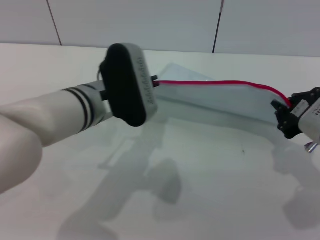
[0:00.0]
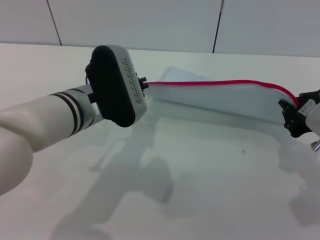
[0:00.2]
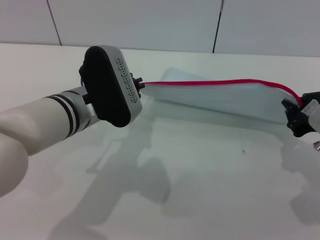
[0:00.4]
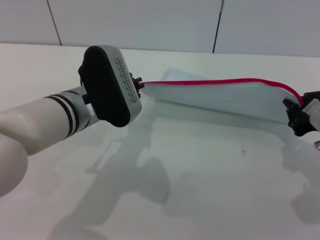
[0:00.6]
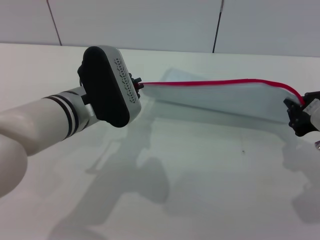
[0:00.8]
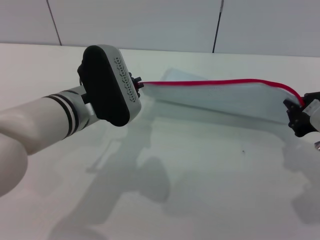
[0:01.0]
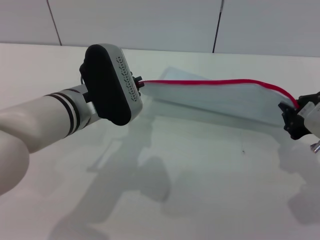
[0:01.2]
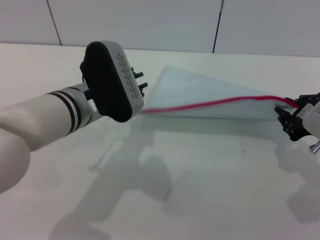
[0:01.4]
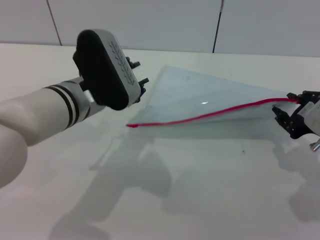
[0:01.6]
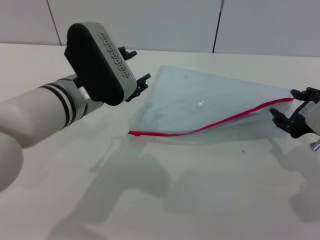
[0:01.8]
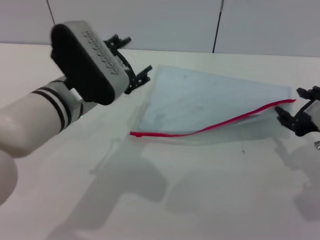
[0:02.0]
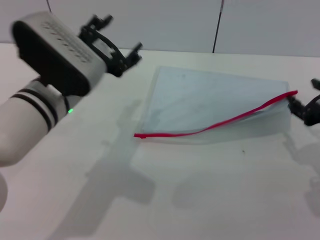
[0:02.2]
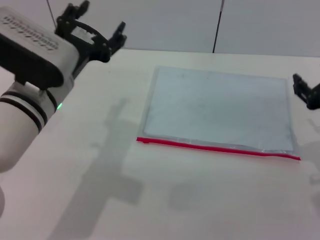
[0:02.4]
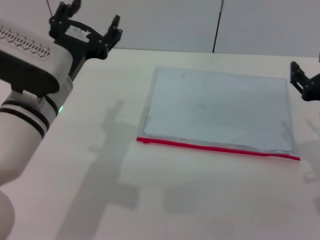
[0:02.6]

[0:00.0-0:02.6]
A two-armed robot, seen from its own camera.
Step, 0:01.4 to 0:02.2: Place the transparent plastic bag.
0:00.0 to 0:01.2: The grippers move only a little.
0:01.2 to 0:02.6: The right gripper opens its fingers. The left gripper opens its fingers.
